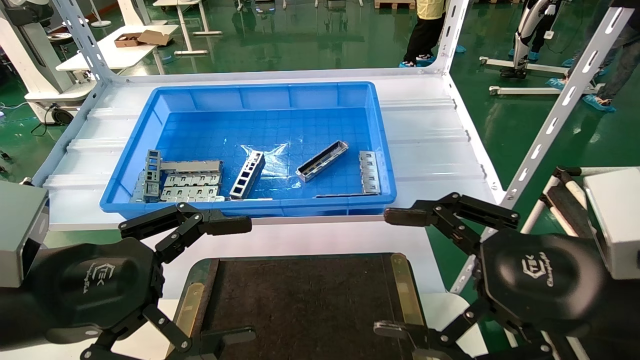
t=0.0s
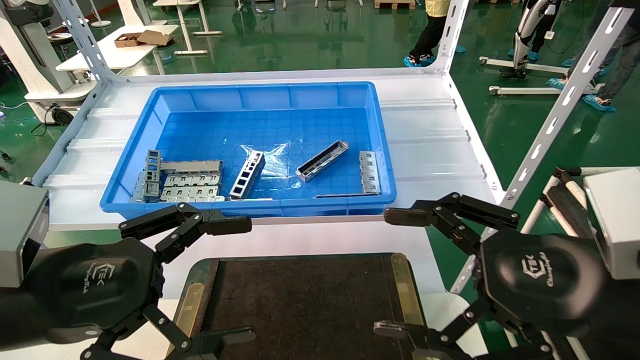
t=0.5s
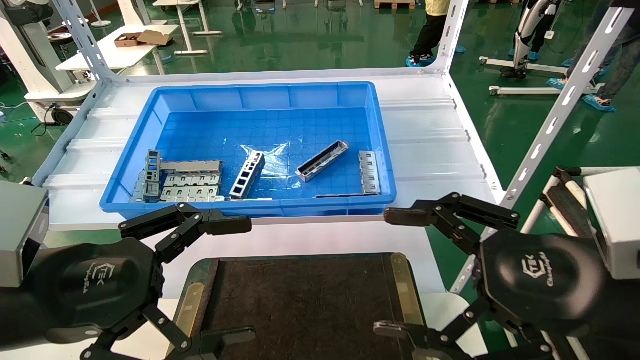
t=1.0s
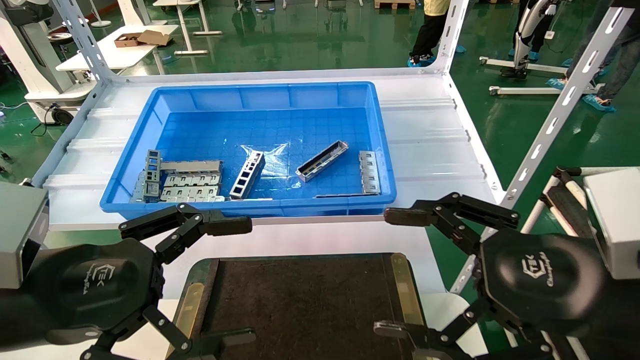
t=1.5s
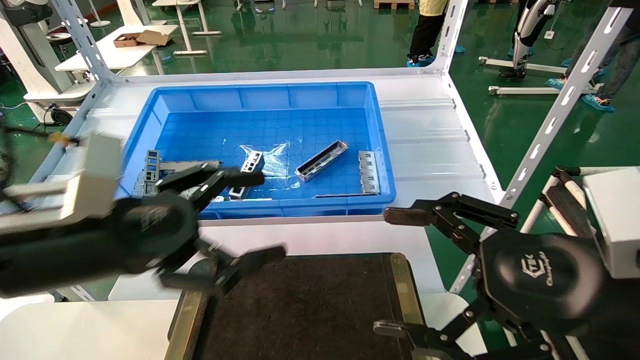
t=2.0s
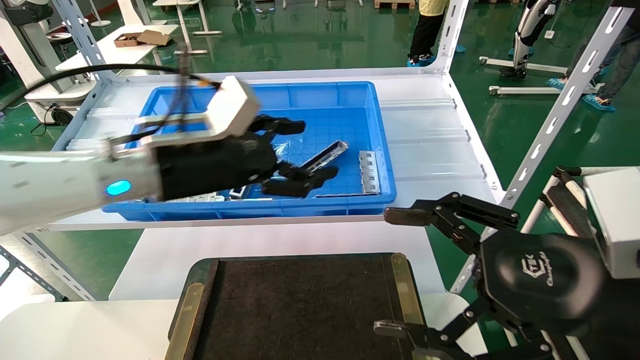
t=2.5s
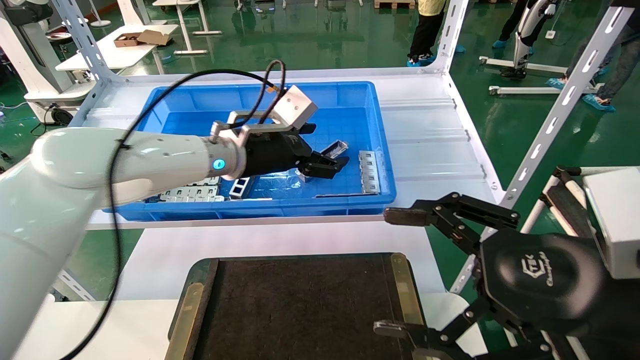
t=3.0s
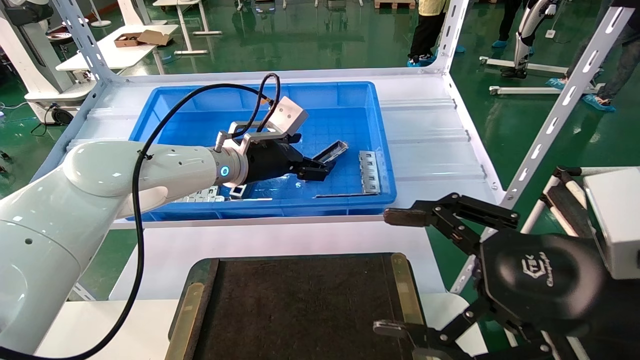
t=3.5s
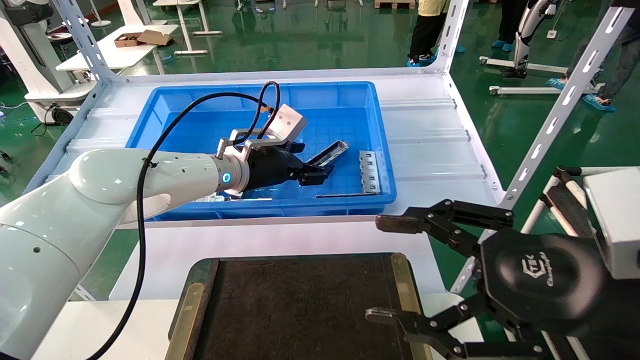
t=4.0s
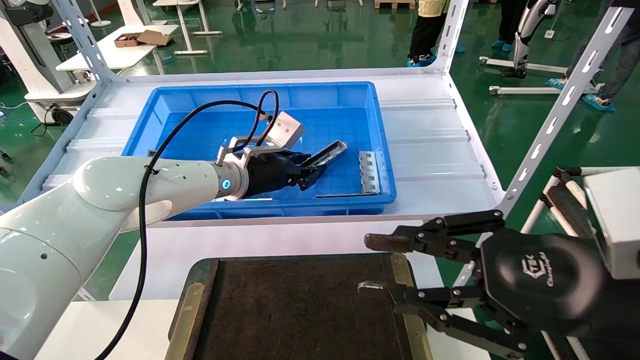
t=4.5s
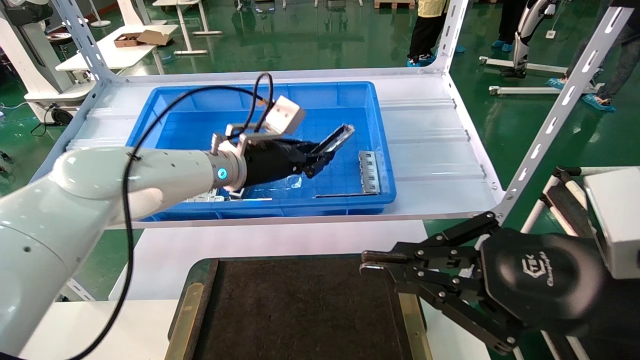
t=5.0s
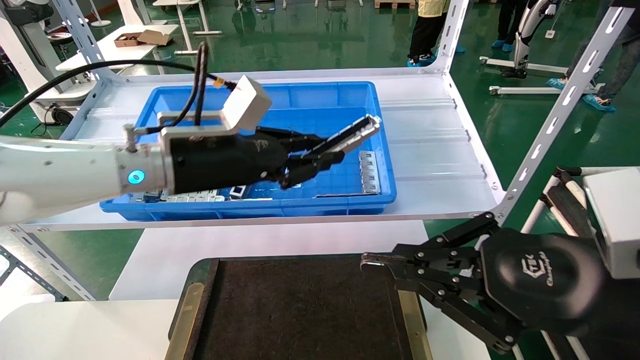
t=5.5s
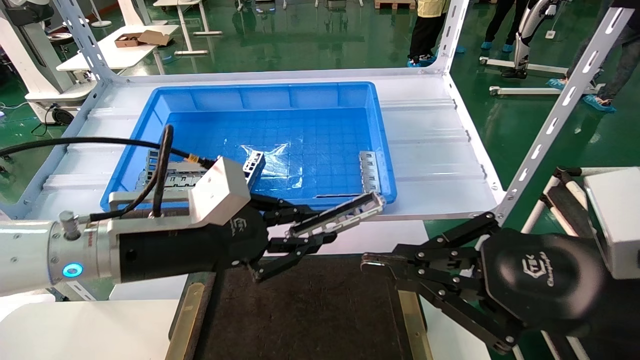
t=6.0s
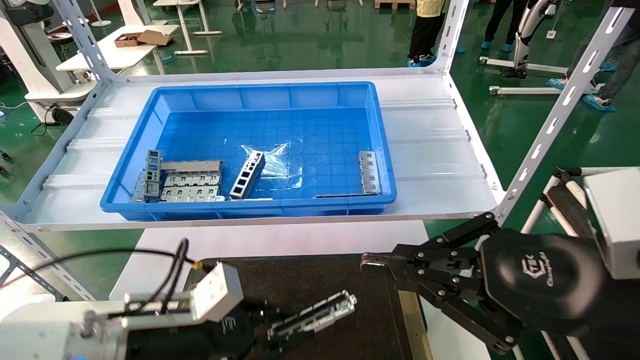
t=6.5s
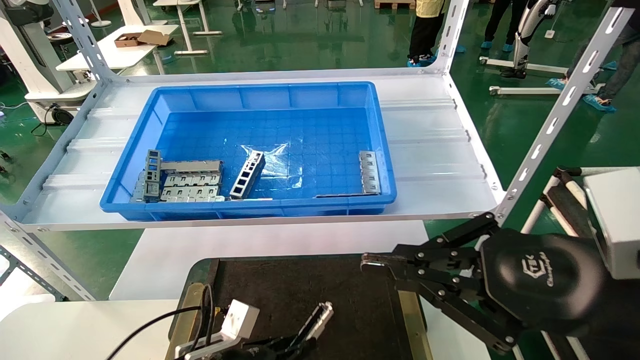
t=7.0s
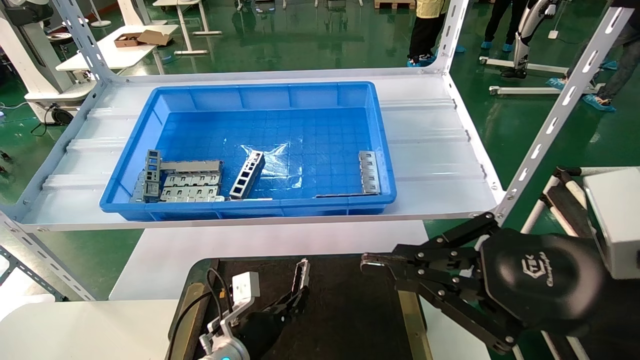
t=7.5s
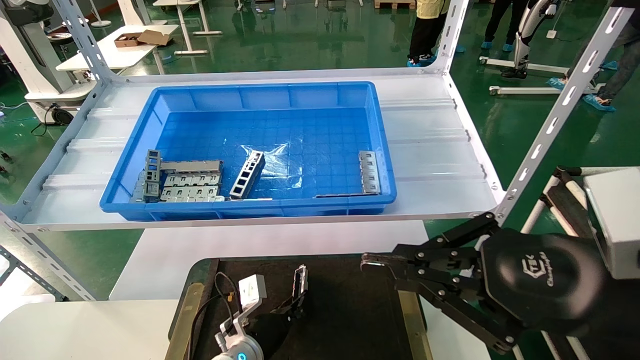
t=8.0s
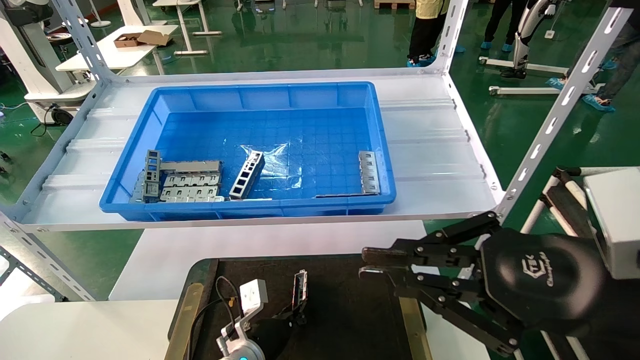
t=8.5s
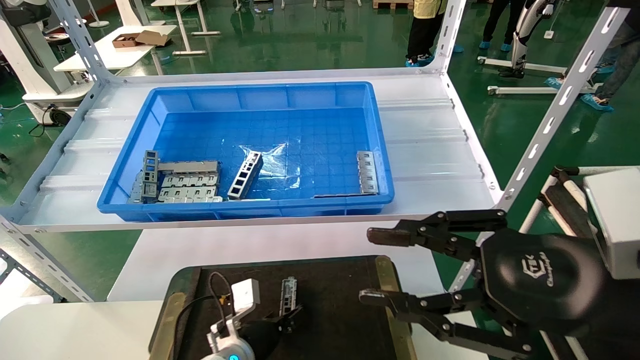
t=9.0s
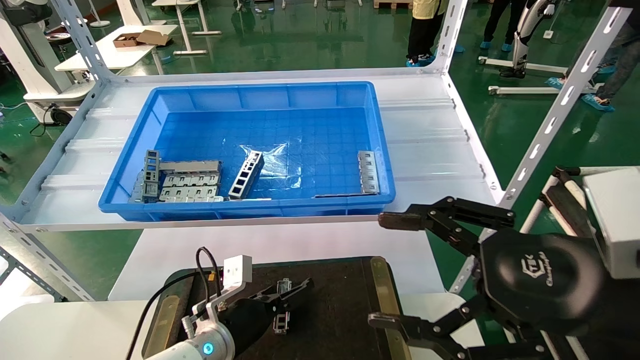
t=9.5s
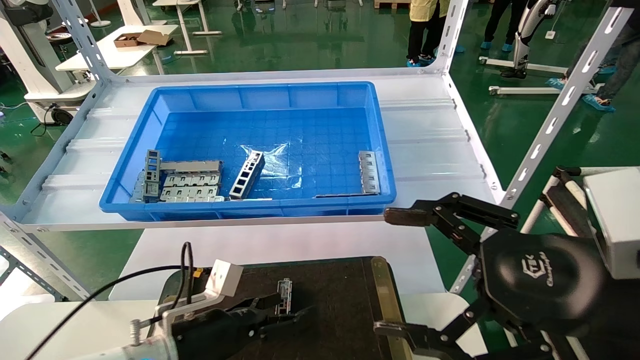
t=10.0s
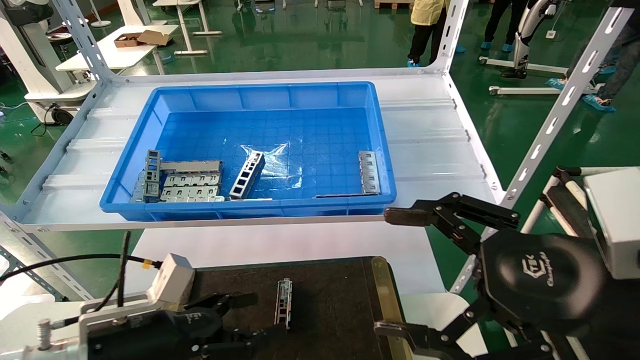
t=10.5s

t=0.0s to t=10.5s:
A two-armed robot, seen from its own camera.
Task of the whole recording: Grasp the part with one hand and place it on the black container.
Step, t=2.0s to t=4.5s: Pick up the front USB bracket from the feeding area.
Step, t=5.0s to t=8.5s: Place the front USB bracket into the box.
t=0.0s to t=2.0s: The left gripper heads forward, covering roughly 5 cm.
t=2.0s to t=4.0s: The left gripper travels forward and to the right by approximately 25 cm.
t=4.0s to t=6.5s: The right gripper closes. The left gripper heads backward, downward and to the left, covering some 25 cm, and closes.
t=6.5s to t=8.5s: The left gripper travels downward, forward and to the right by roughly 20 cm.
t=8.5s to t=10.5s: The left gripper travels upward, to the left and backward by some 25 cm, and opens its fingers; the right gripper opens its fingers.
